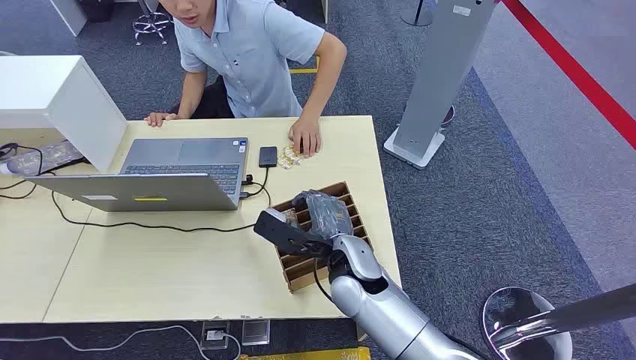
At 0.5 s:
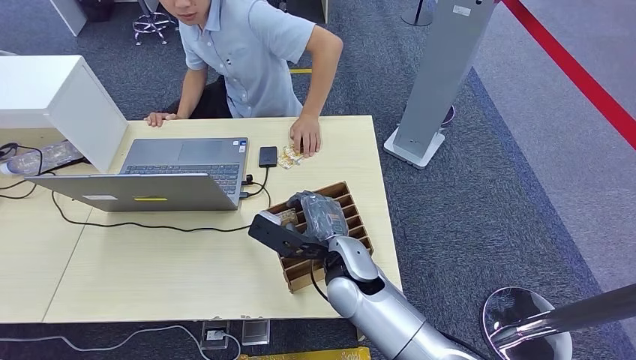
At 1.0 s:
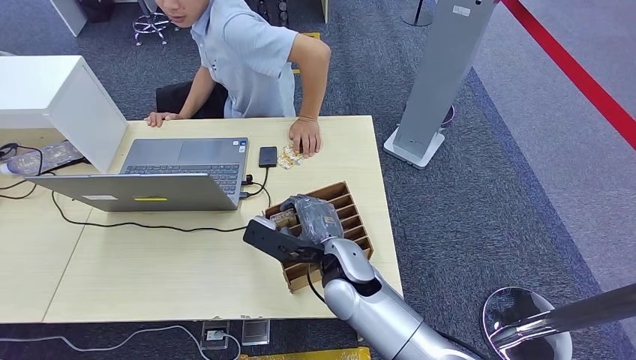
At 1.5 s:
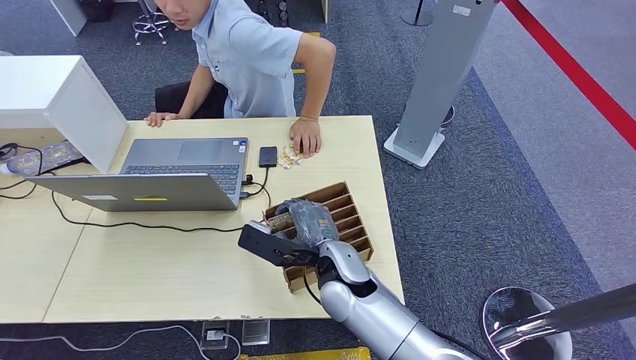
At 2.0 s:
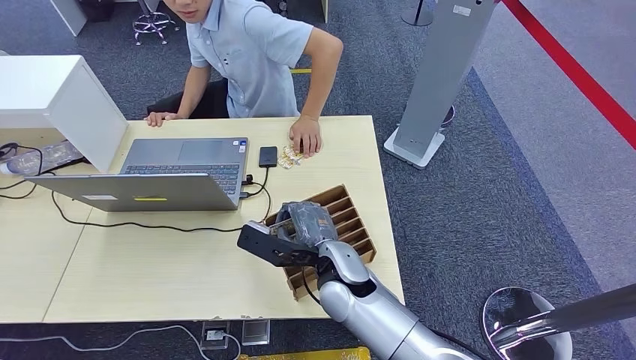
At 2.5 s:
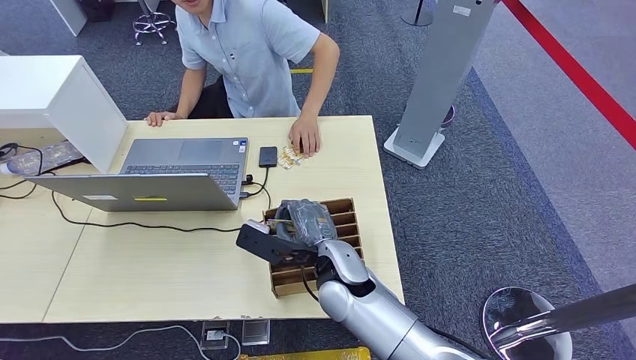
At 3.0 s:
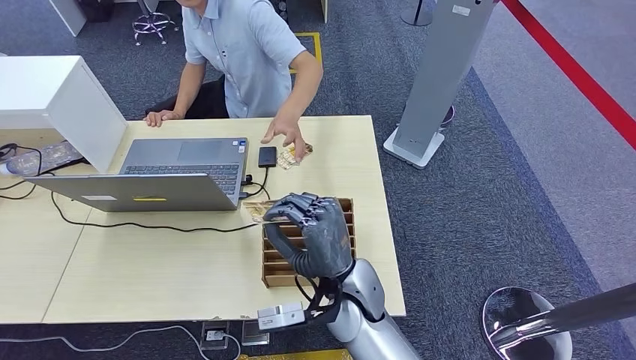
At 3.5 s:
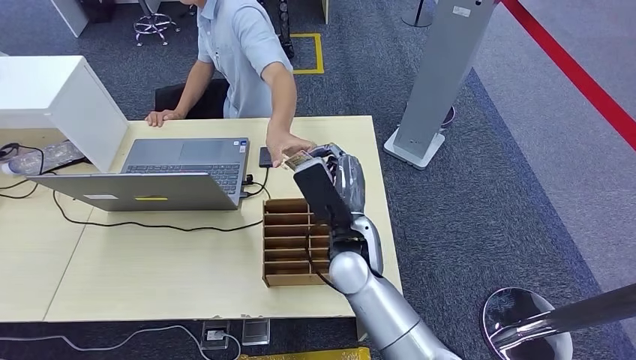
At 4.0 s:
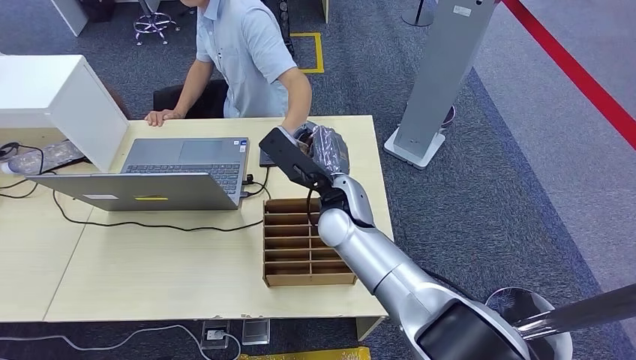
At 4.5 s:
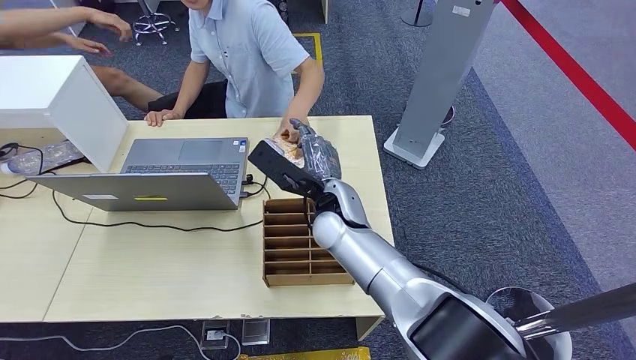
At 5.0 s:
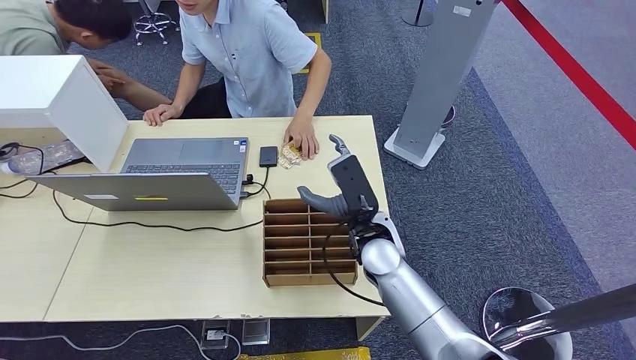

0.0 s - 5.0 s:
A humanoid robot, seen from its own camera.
Step, 0.0 s - 3.0 s: Pick up the room card from the card holder.
Step, 4.0 s - 5.0 s: Hand the room card to the target.
2.5 s - 5.0 s: The right hand is displaced to the right by some 5 cm.
